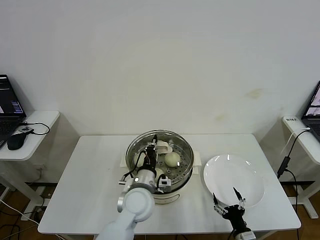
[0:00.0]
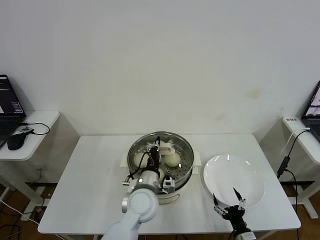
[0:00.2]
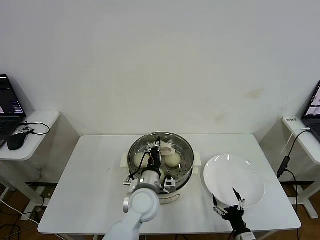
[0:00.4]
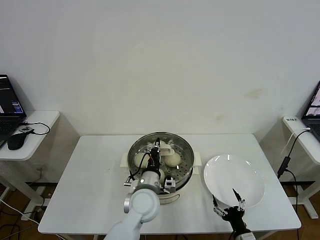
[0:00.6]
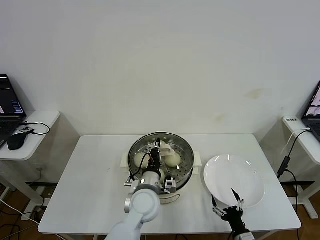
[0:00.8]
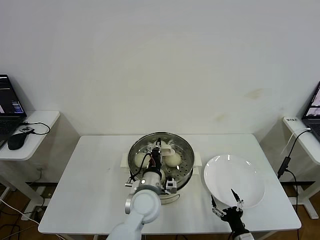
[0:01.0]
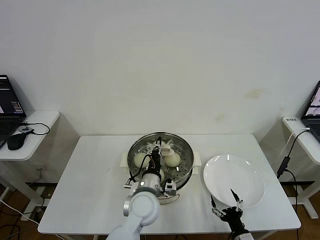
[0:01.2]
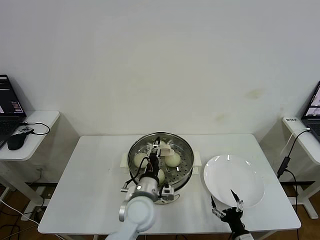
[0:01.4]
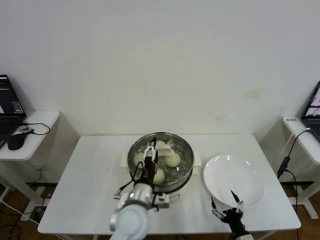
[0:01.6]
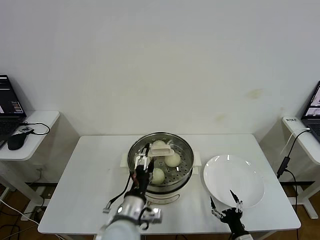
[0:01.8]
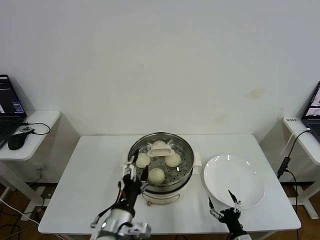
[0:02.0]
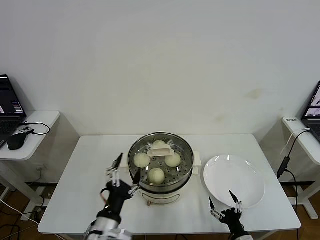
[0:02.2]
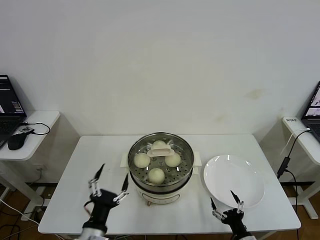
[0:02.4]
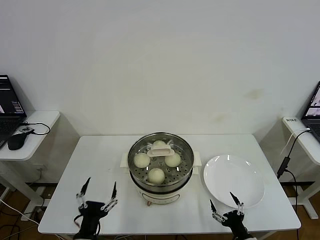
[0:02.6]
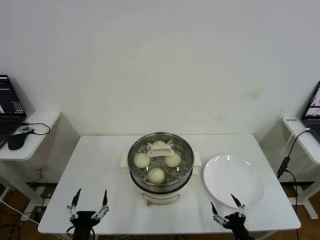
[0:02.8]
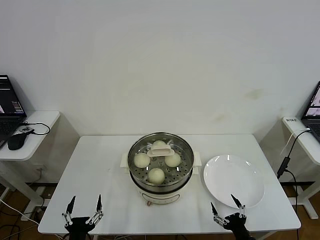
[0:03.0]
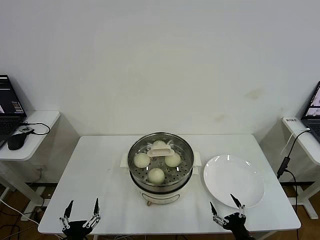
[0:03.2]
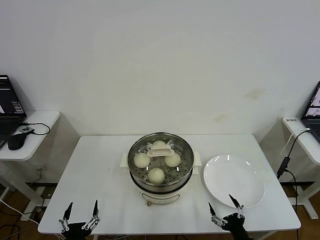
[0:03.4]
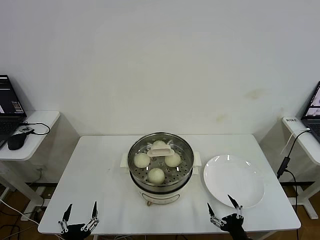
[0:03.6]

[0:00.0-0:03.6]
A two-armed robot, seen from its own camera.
0:00.0 to 0:01.8: The left gripper is displaced backward by roughly 10 cm, and opens.
0:01.8 to 0:03.6: The left gripper shifts approximately 25 cm to the left, backward and downward. The right gripper shifts about 5 cm upward.

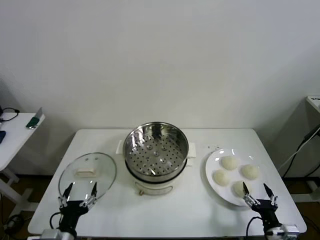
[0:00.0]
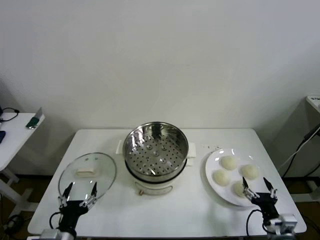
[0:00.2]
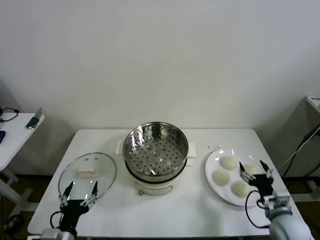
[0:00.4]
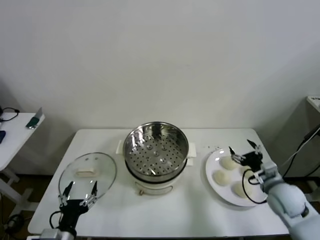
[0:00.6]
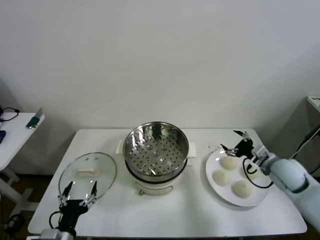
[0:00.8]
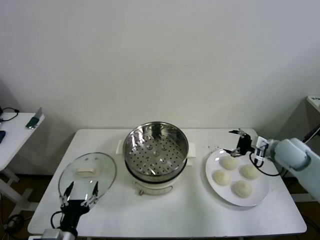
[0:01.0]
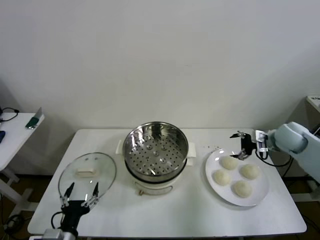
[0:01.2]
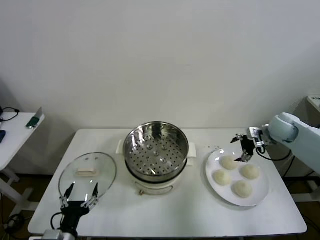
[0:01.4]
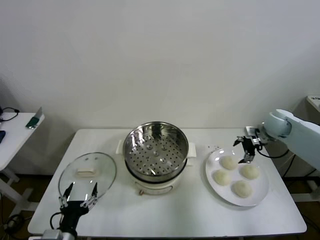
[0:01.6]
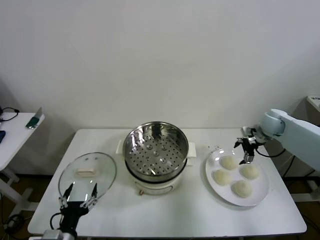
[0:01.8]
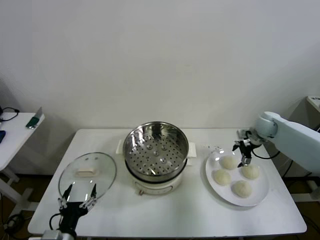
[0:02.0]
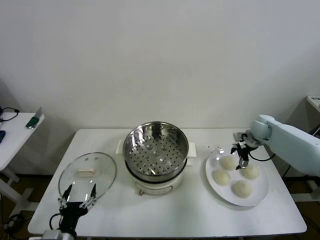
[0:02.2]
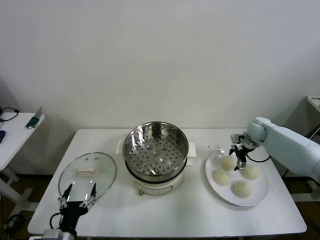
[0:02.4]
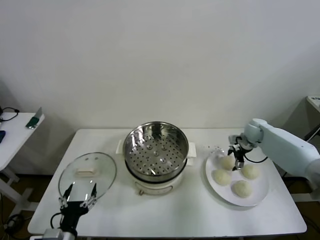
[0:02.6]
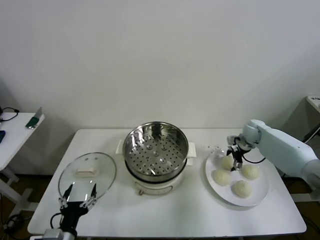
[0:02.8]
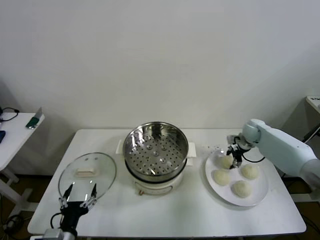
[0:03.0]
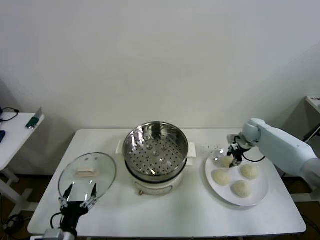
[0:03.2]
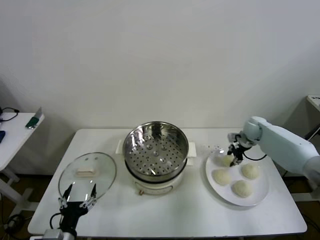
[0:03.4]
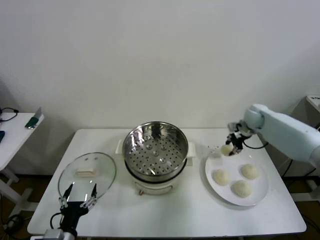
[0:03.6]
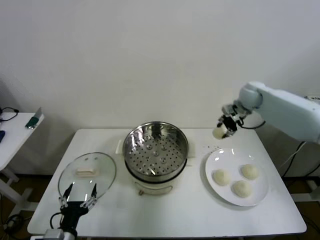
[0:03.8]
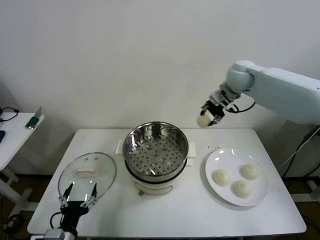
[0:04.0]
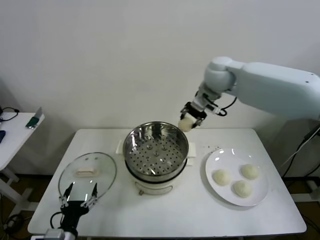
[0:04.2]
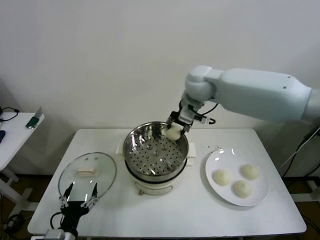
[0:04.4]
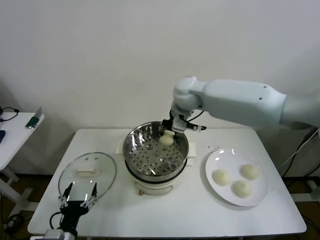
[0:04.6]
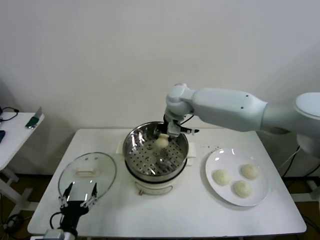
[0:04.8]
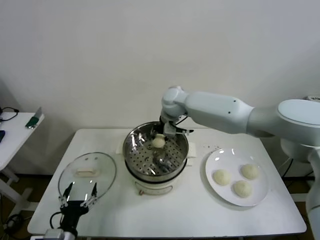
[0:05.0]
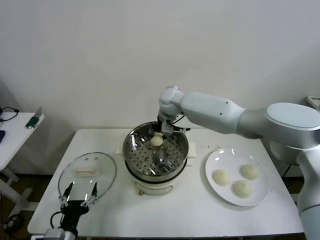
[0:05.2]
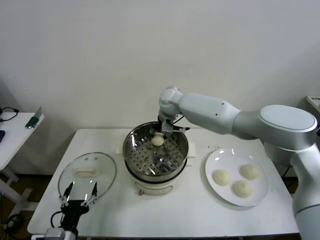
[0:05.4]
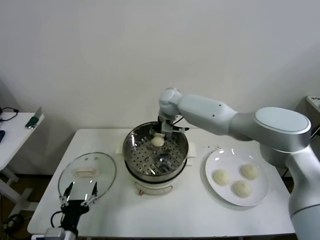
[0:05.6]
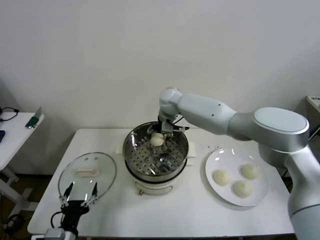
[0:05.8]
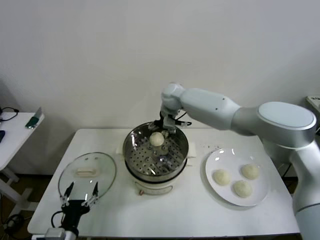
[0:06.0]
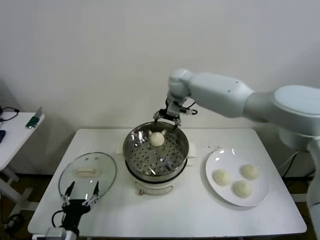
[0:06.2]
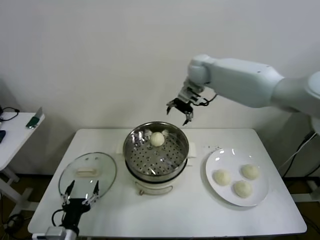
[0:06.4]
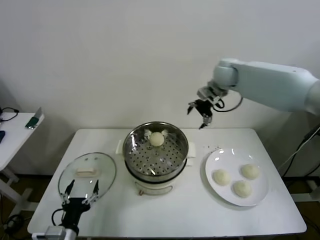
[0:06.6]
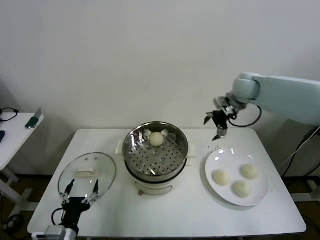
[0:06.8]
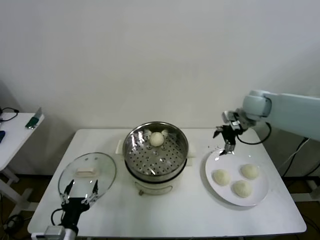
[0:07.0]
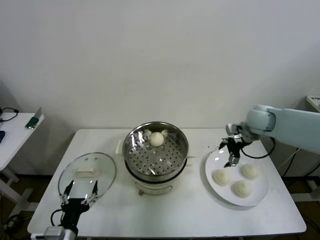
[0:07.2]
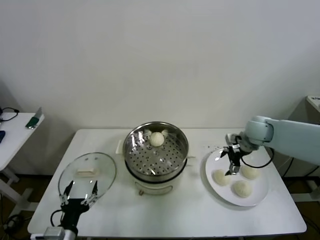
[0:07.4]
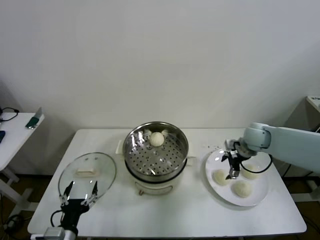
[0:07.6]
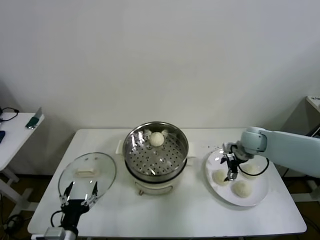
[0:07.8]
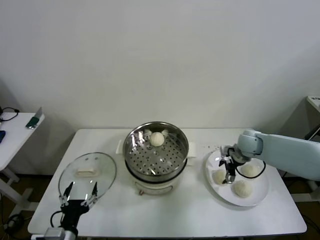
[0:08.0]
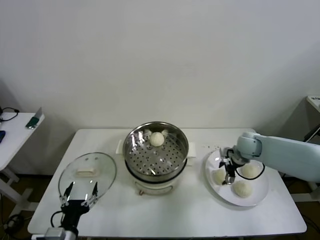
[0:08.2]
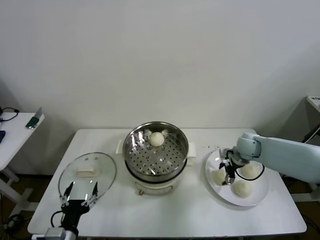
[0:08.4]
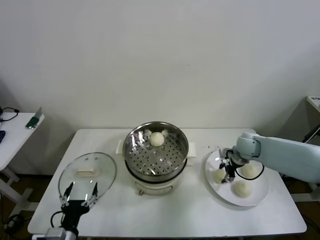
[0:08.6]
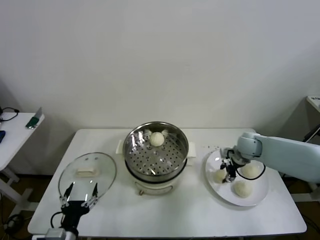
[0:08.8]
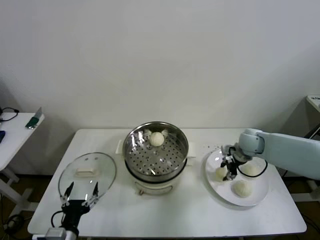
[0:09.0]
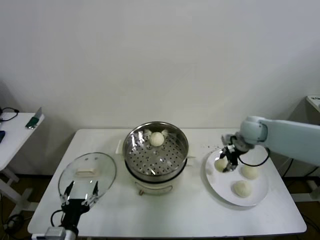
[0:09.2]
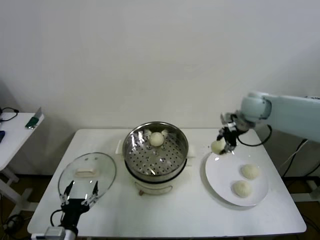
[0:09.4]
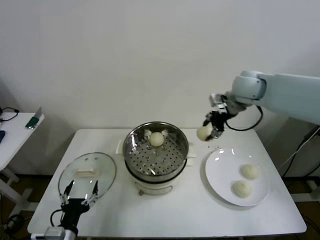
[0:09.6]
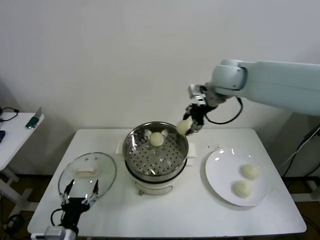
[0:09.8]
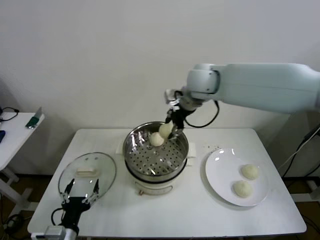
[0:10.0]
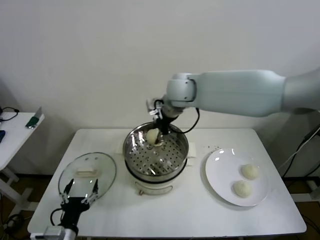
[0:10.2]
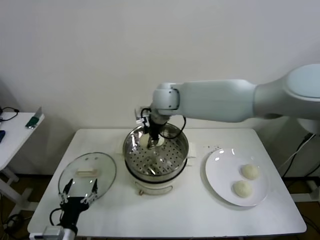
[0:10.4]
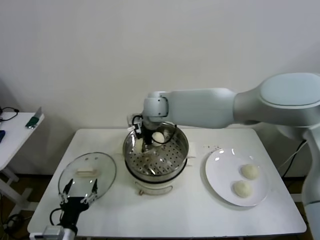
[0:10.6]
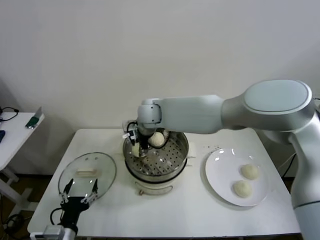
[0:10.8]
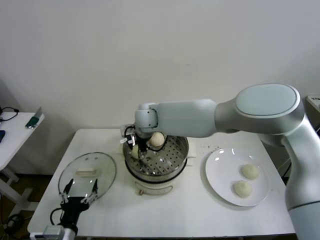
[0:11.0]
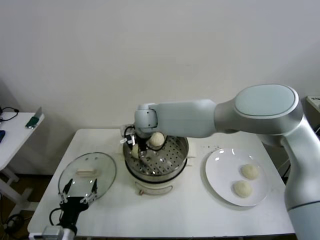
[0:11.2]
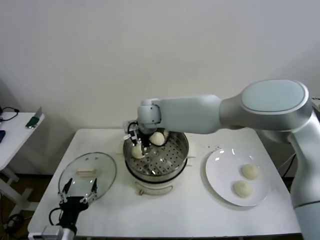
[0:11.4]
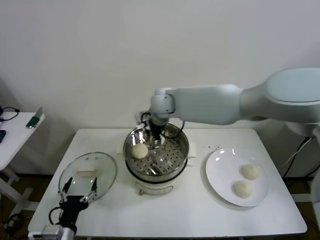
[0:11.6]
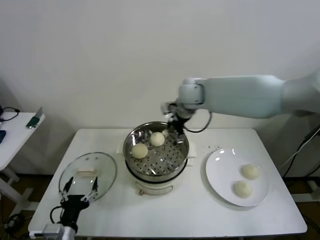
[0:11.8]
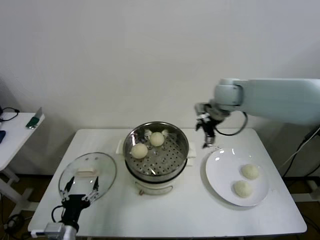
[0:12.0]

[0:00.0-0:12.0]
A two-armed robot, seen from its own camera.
Step, 0:00.0 to 0:03.0: Grasp the baozi in the plate with right gripper.
Step, 0:03.2 to 0:06.0: Place the baozi on the steamer with right gripper.
Step, 0:06.2 to 0:08.6: Grasp the baozi in the plate with right gripper.
Step, 0:09.0 to 0:11.6: Place the baozi on the steamer with right gripper.
0:01.6 to 0:03.0: The right gripper shifts approximately 10 cm downward, and closes its fingers.
0:03.0 to 0:04.4: The right gripper is displaced to the left and upward by roughly 40 cm.
0:04.4 to 0:06.0: The right gripper travels forward by some 10 cm, and opens.
0:06.0 to 0:07.6: The right gripper shifts roughly 35 cm to the right, downward and backward.
0:07.6 to 0:09.0: The right gripper closes.
0:09.0 to 0:10.4: The right gripper moves to the left and upward, approximately 35 cm.
0:10.4 to 0:12.0: The right gripper travels to the right by approximately 25 cm, and opens up.

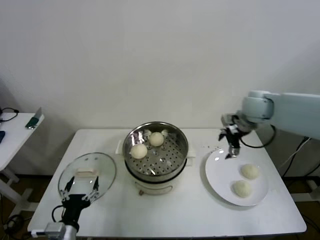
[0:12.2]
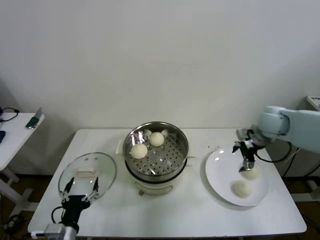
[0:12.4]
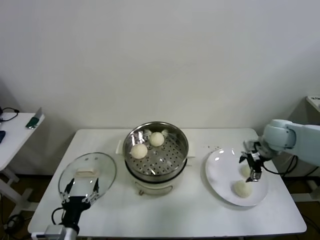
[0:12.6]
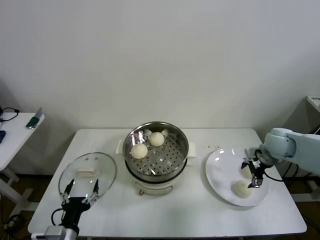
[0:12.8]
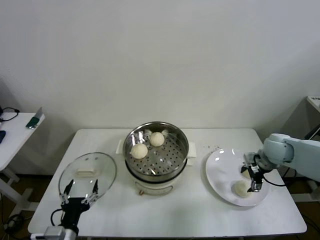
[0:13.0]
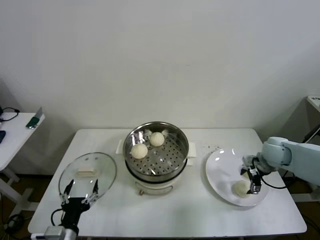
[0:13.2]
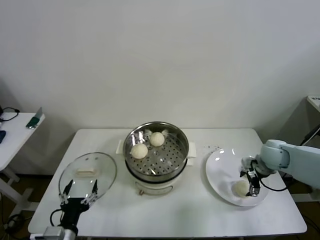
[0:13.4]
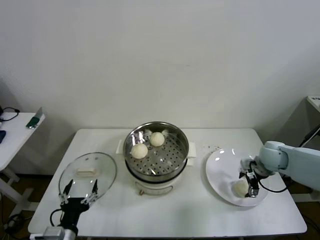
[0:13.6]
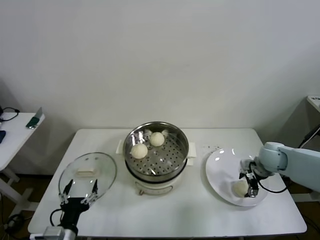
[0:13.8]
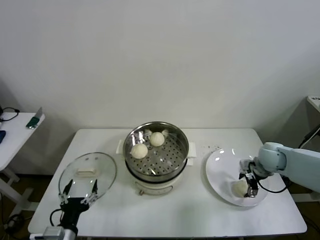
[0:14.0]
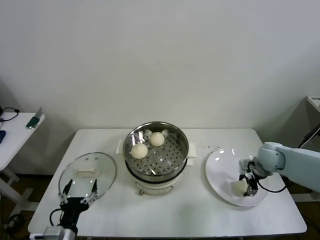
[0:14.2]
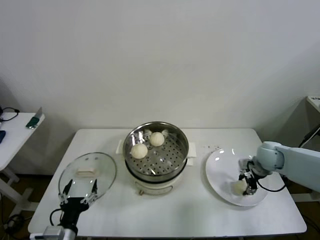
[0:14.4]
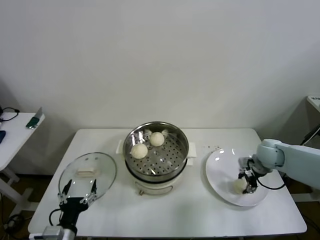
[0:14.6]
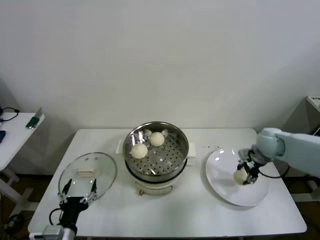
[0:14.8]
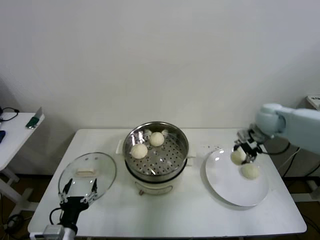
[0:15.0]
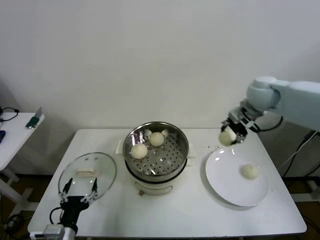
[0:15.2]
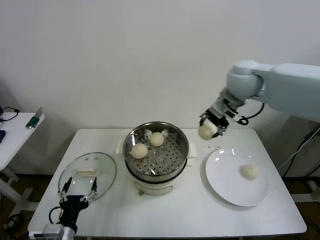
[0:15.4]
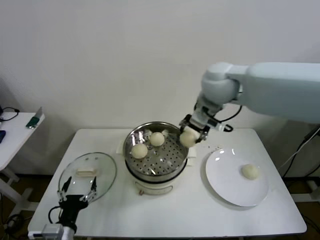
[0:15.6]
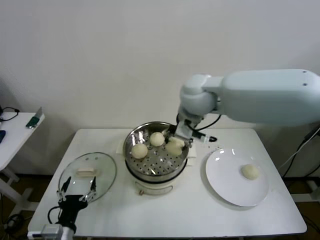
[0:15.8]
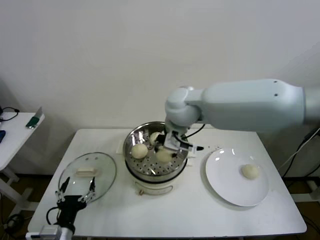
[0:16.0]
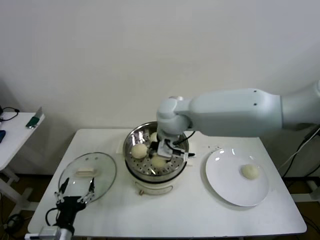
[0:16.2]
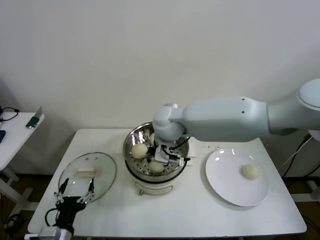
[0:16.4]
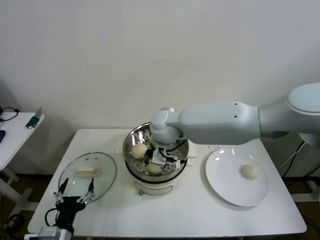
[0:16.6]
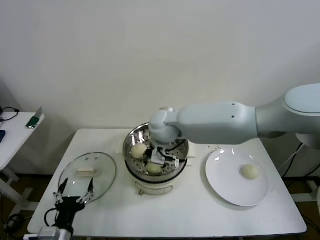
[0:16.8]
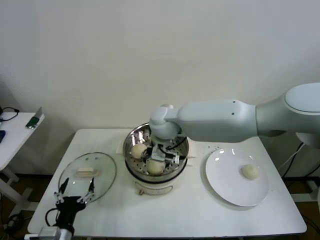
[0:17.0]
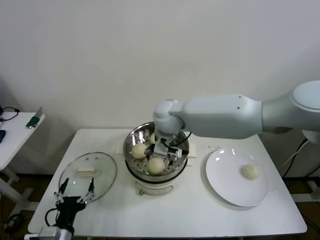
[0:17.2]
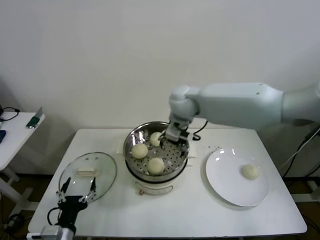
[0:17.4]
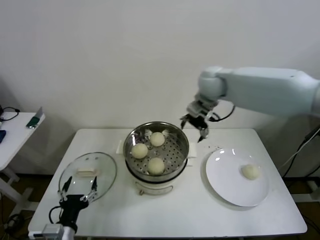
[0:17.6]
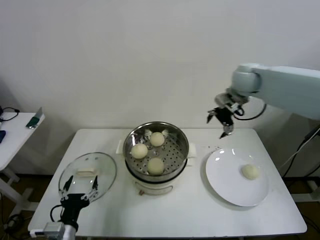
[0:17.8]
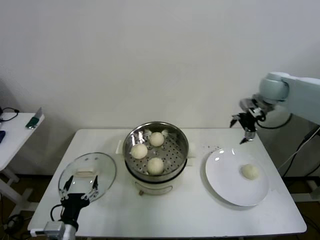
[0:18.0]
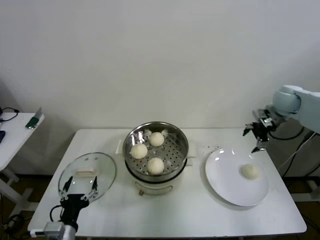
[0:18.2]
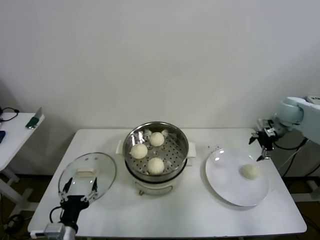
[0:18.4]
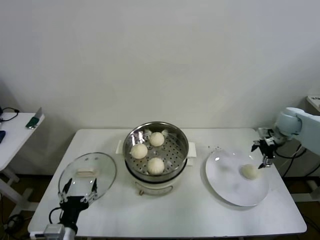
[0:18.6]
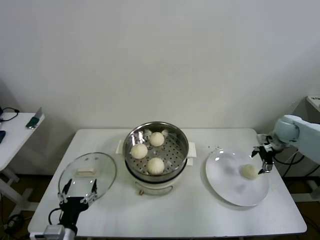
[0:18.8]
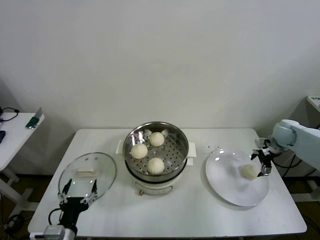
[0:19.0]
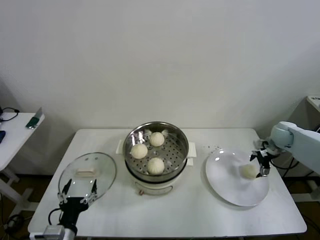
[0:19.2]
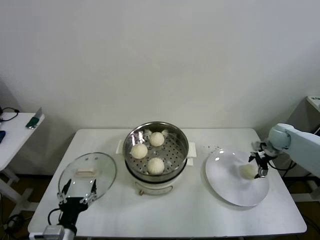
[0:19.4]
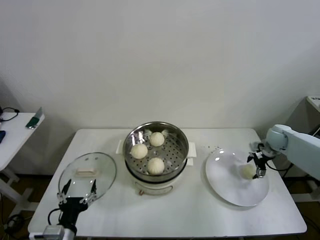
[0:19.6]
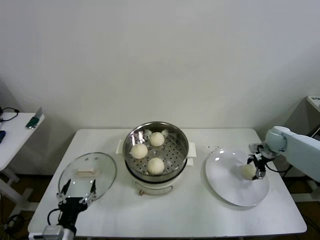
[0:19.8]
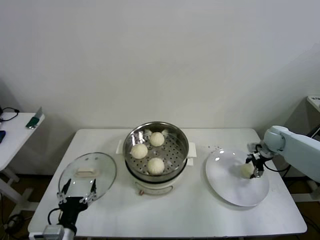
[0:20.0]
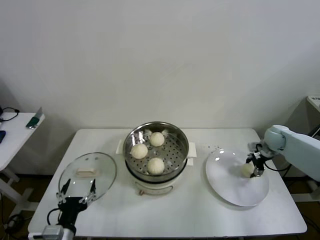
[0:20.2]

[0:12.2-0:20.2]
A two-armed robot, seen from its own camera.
Step, 0:12.2 to 0:14.4: Grasp the baozi in the plate with right gripper.
Step, 0:14.6 to 0:17.0: Place the baozi on the steamer with right gripper.
Step, 0:17.2 to 0:20.2: Grasp the baozi in the plate with right gripper.
0:12.2 to 0:13.8: The right gripper shifts about 15 cm downward and to the right.
0:13.8 to 0:15.4: The right gripper shifts roughly 35 cm upward and to the left, and closes up.
0:15.4 to 0:17.0: The right gripper moves to the left and downward, about 25 cm, and opens its fingers.
0:17.0 to 0:18.6: The right gripper goes approximately 50 cm to the right.
0:18.6 to 0:20.2: The right gripper shifts roughly 10 cm downward, and closes its fingers.
